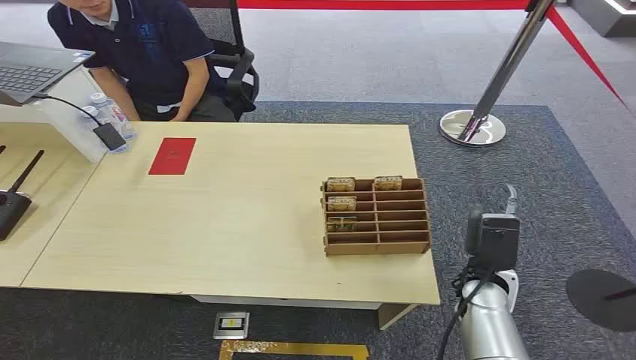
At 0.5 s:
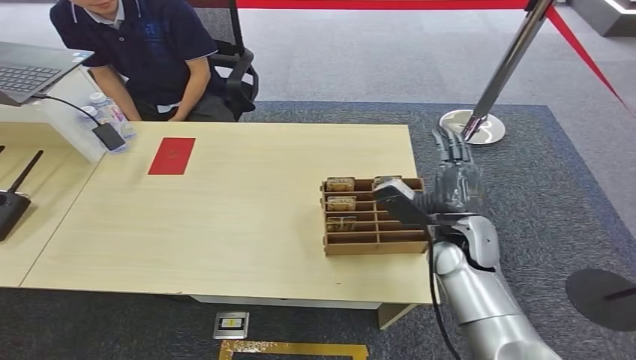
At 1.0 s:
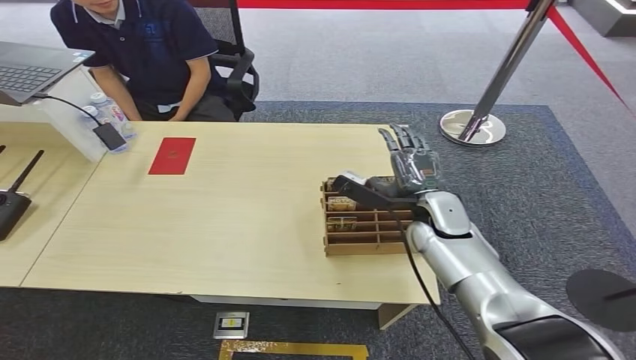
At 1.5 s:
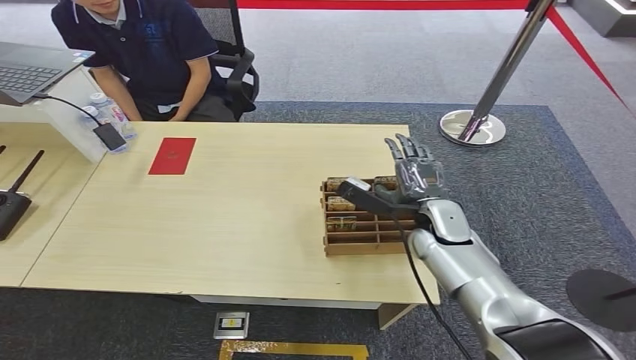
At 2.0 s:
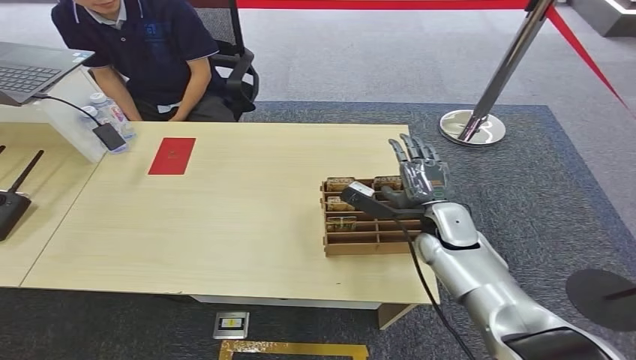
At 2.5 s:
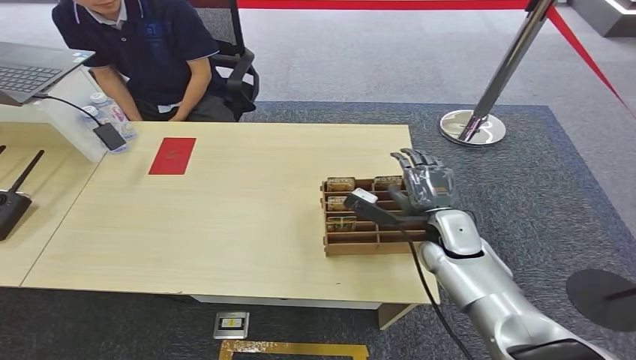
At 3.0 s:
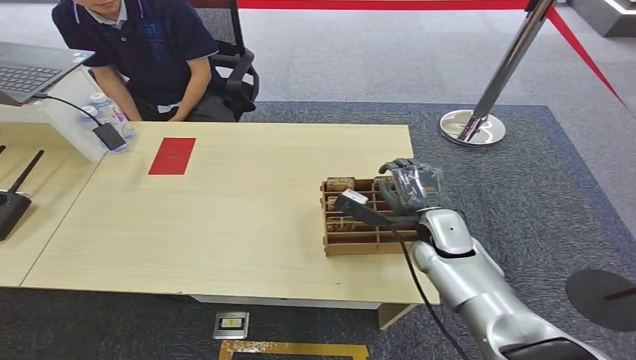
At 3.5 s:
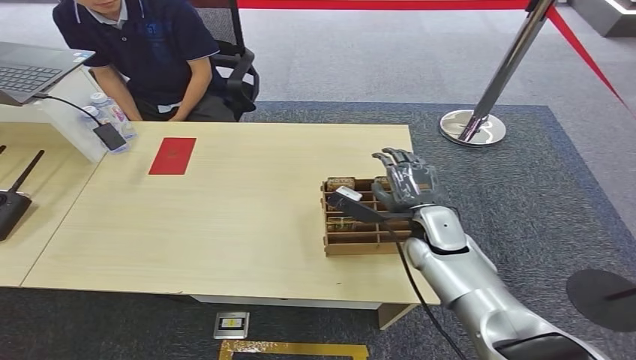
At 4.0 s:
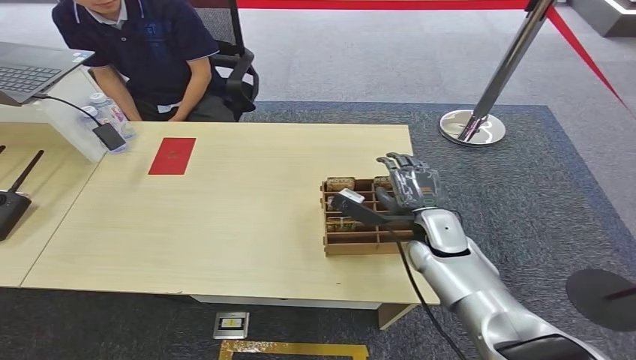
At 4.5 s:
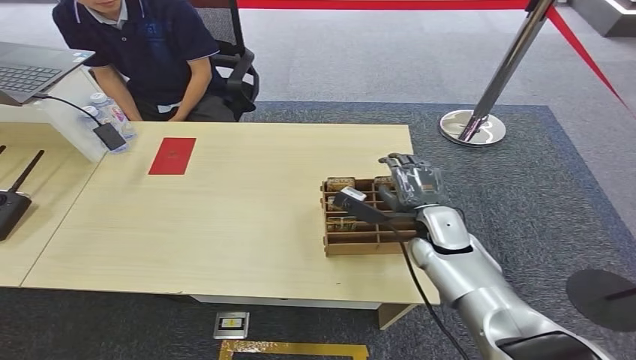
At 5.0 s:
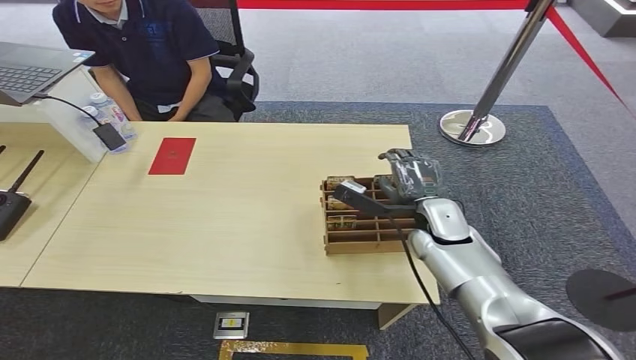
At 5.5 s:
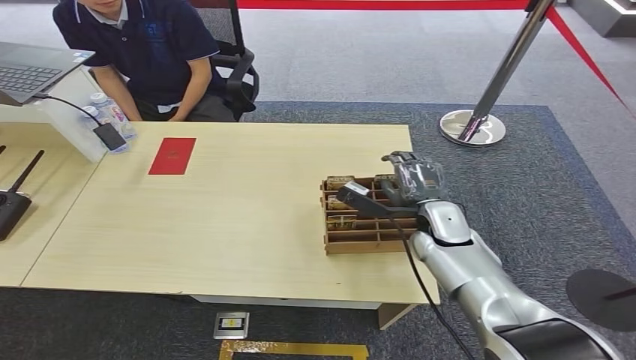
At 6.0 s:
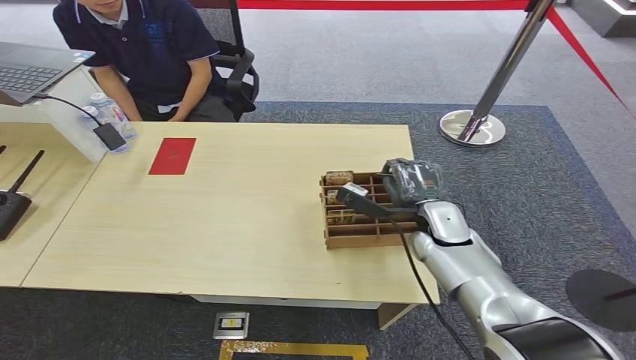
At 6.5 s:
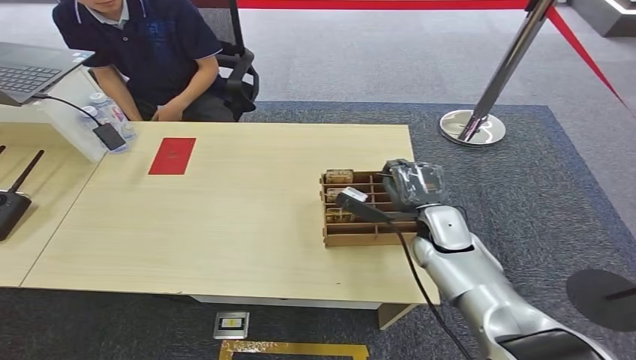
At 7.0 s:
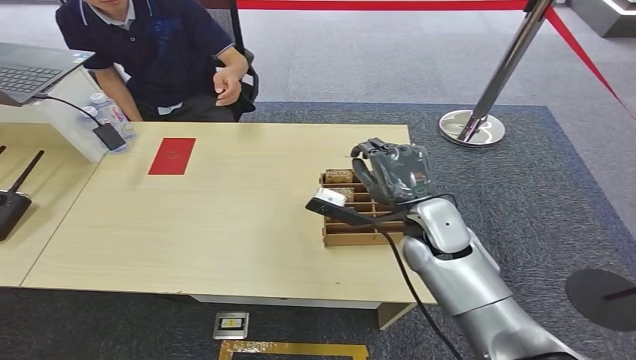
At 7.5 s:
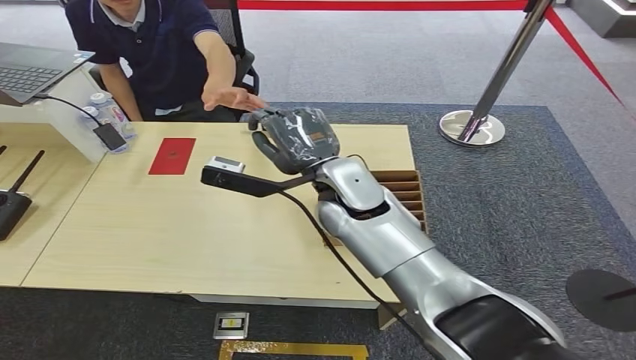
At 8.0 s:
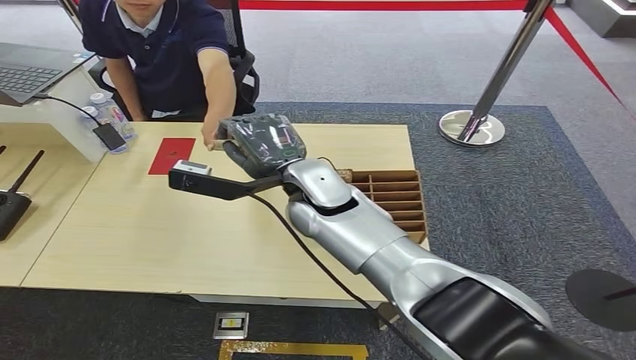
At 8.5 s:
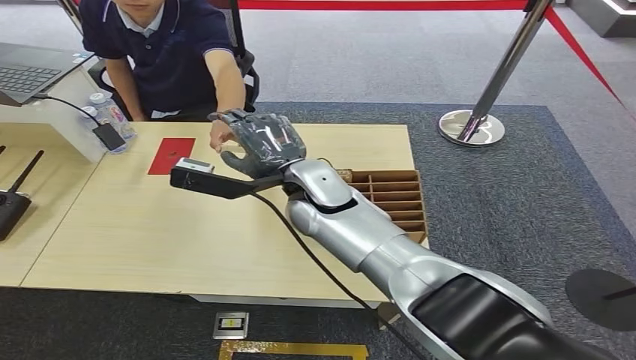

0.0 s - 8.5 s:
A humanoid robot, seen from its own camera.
Step, 0.0 s - 7.0 s: Pick up the key card from the card box.
Step, 7.5 s - 8.5 s: Hand the key card to the target.
2.0 s - 6.5 s: There are only small adjustments of the hands.
6.5 s - 8.5 s: The right hand heads to the left and upward, covering approximately 25 cm.
